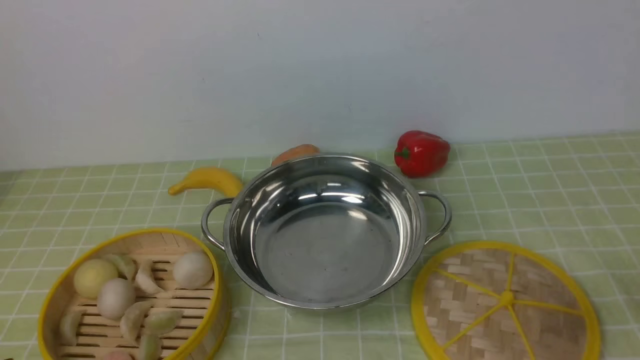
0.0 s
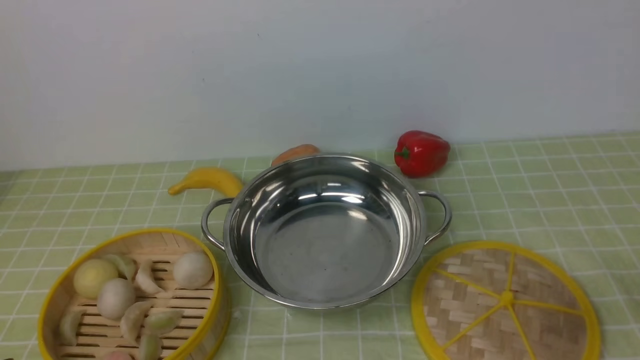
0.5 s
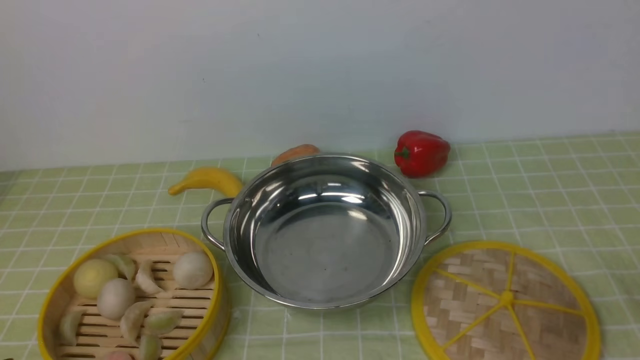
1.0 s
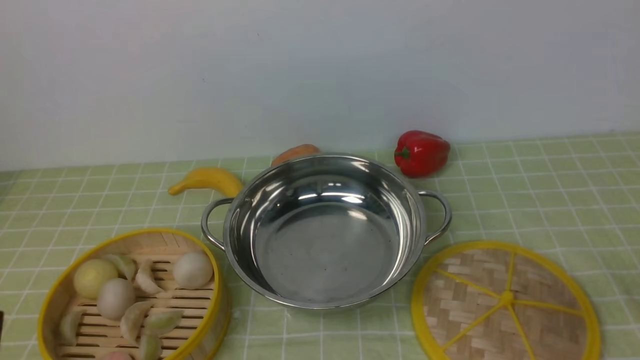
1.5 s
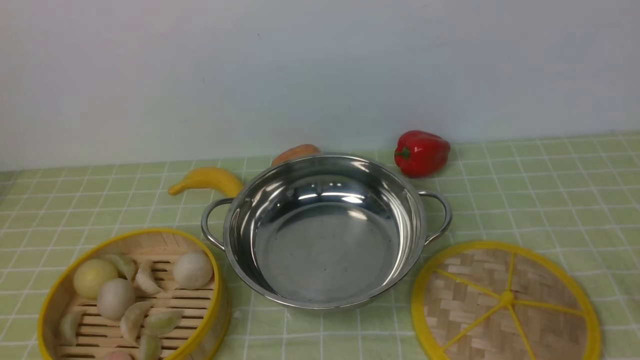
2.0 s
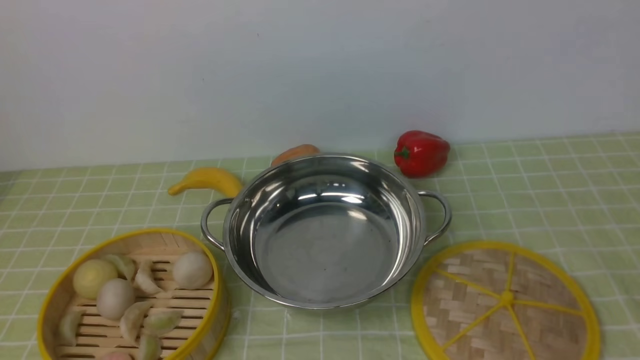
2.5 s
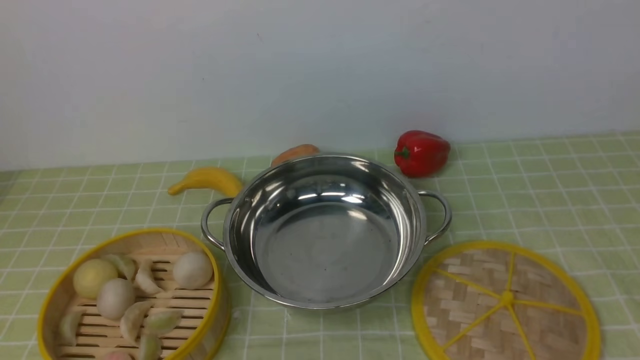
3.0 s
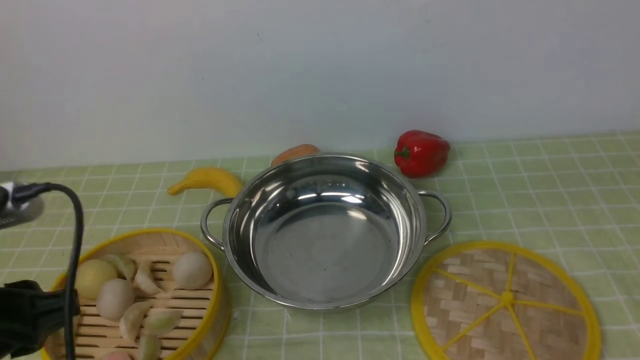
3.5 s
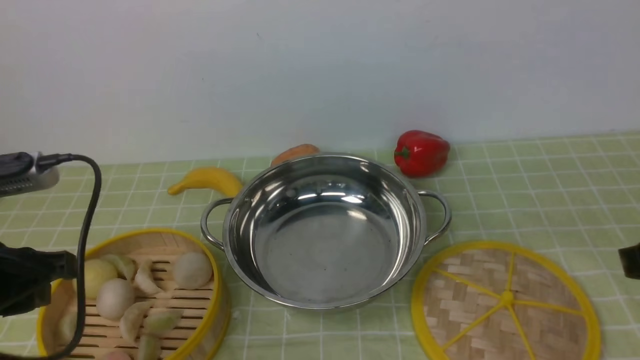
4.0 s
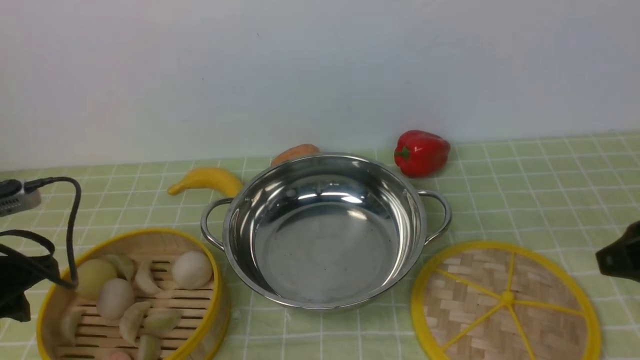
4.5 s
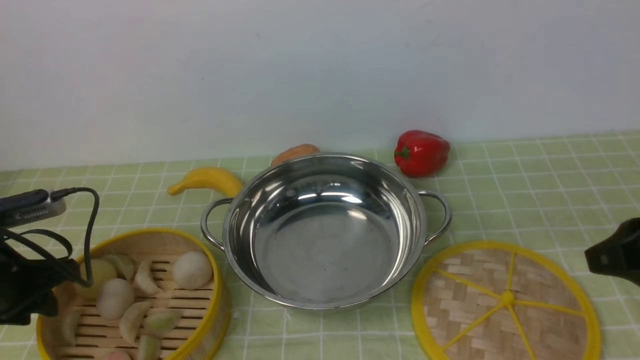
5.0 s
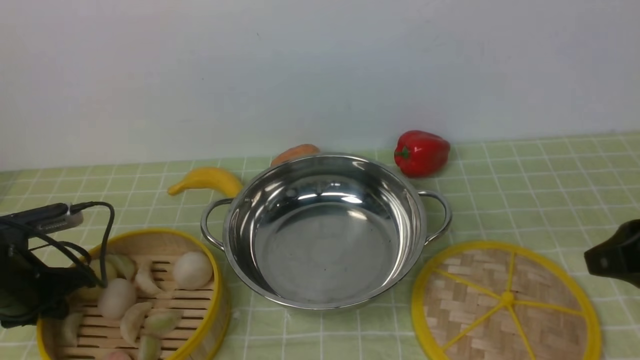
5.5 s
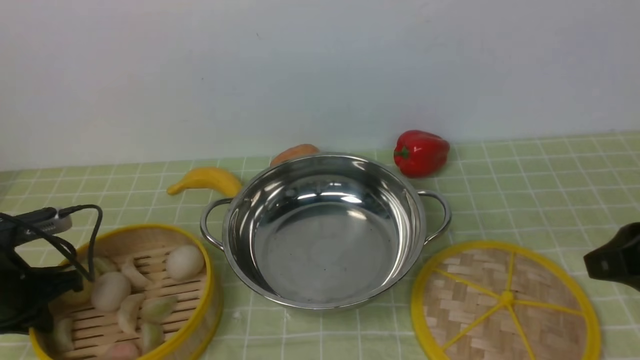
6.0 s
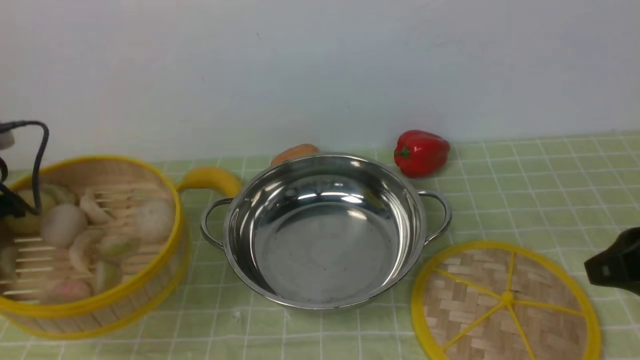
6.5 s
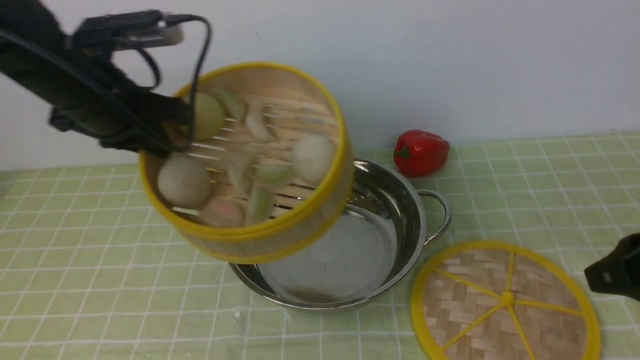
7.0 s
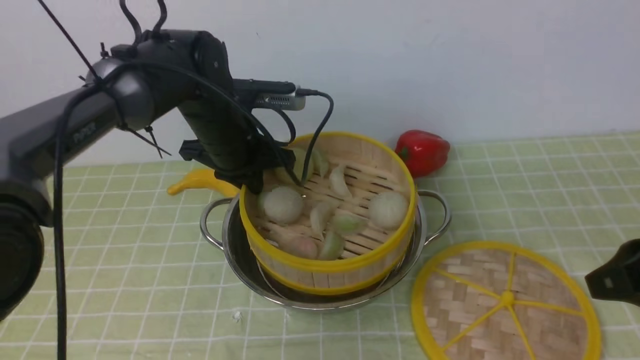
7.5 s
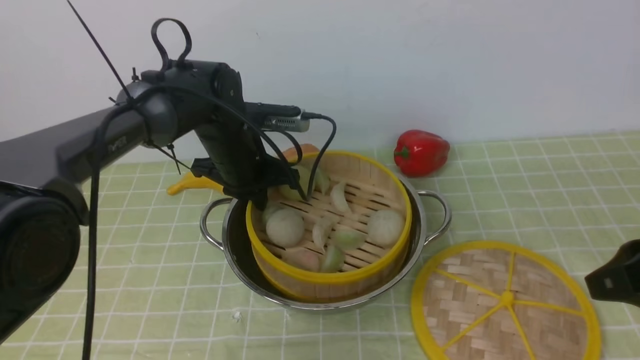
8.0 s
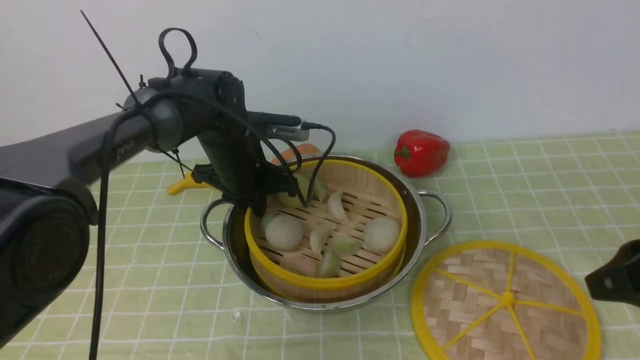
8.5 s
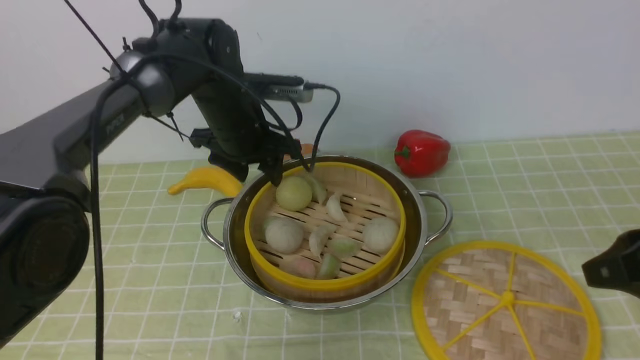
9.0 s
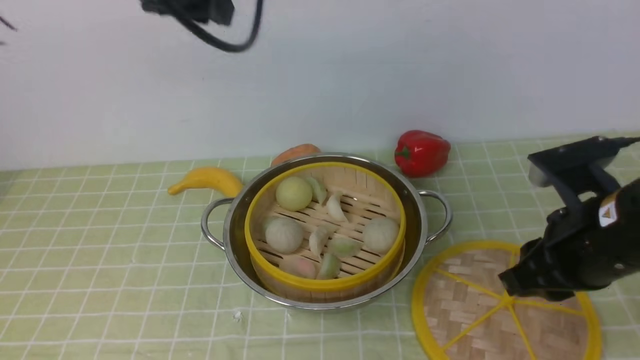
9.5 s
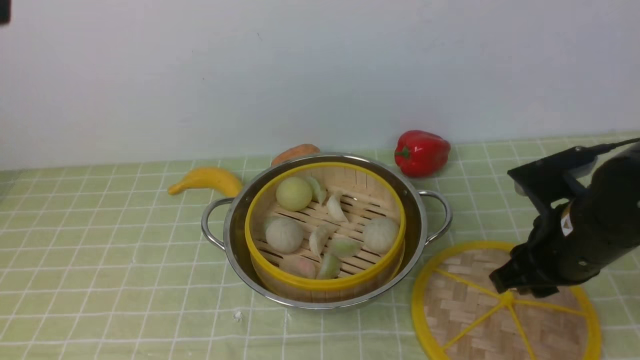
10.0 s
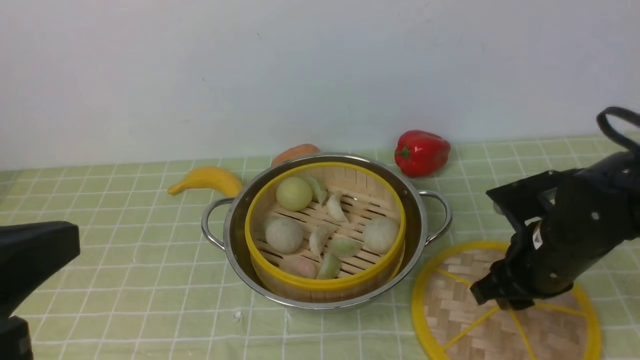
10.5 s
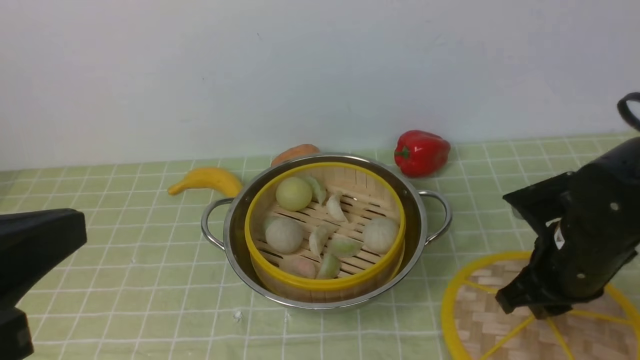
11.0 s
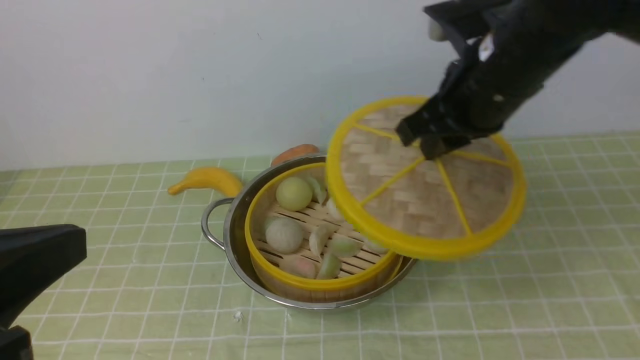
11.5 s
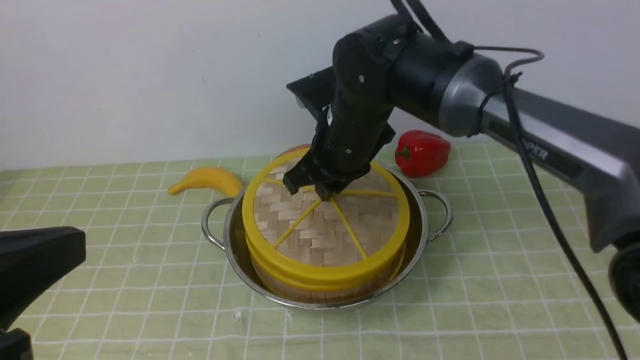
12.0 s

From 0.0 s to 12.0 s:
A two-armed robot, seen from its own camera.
Task of the whole recording: place the steamer in the pot on the green tablecloth, and put the lid on the steamer.
Step, from 0.0 s to 6.5 s: use the left arm to lift the steamer closest to it.
Step, from 7.0 s to 9.0 s: use the left arm to put the steamer into the iron steamer pot in the middle.
Step, from 9.5 s to 11.5 s: use the right arm to lift the lid of the steamer.
From 2.0 s to 4.0 s: The left gripper moves forward, about 15 cm.
From 4.0 s to 6.0 s: The left gripper heads downward, to the left and forward, covering about 15 cm, and closes up.
From 6.0 s to 8.0 s: The left gripper is displaced to the right and forward by roughly 30 cm.
From 8.0 s to 10.0 s: The left gripper travels backward and upward by roughly 40 cm, and opens and closes again; the right gripper moves forward, downward and to the left, roughly 10 cm.
From 10.0 s to 12.0 s: The left gripper travels downward and backward by about 10 cm. The right gripper is displaced to the left and forward by roughly 20 cm.

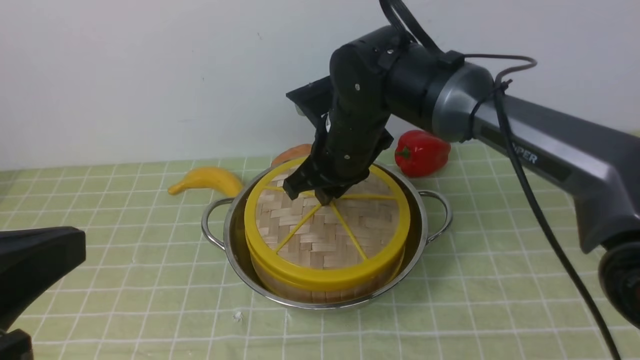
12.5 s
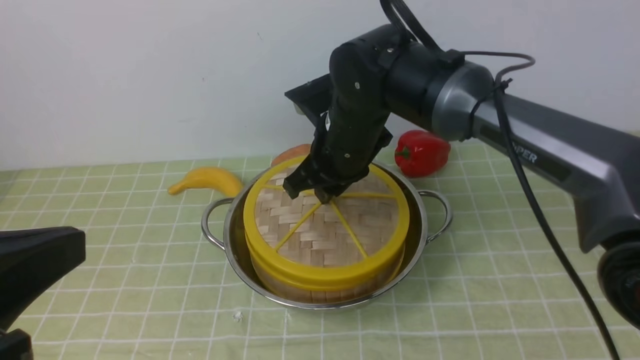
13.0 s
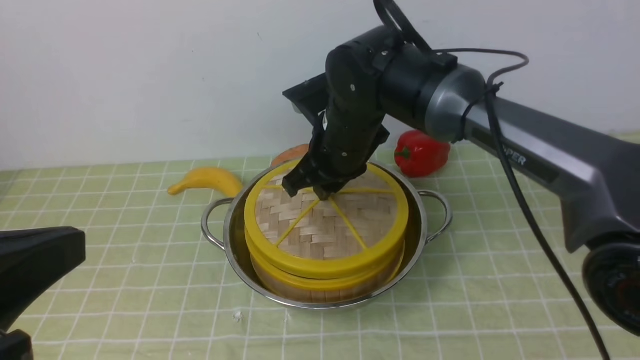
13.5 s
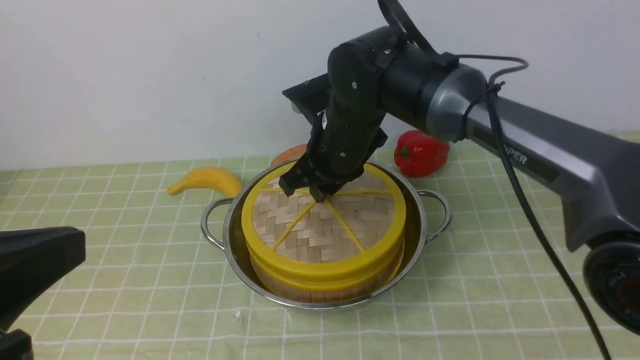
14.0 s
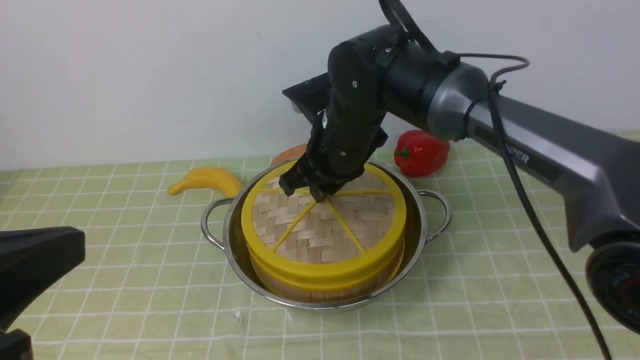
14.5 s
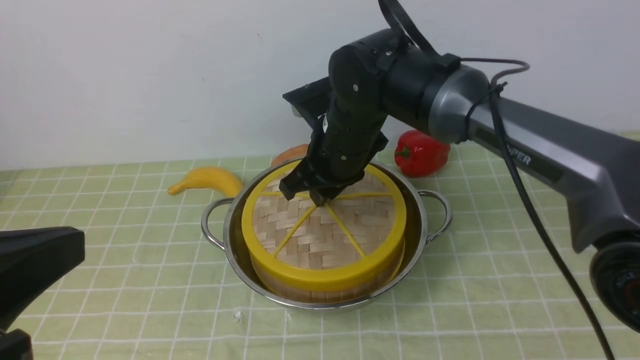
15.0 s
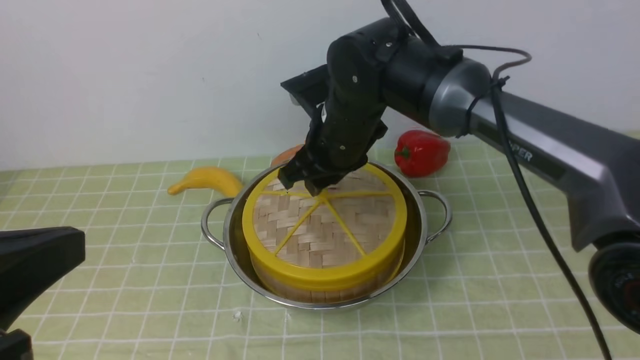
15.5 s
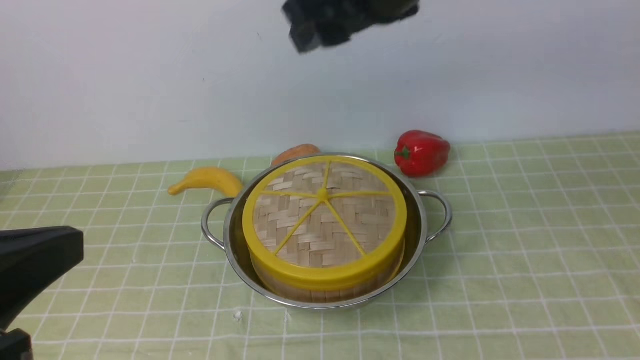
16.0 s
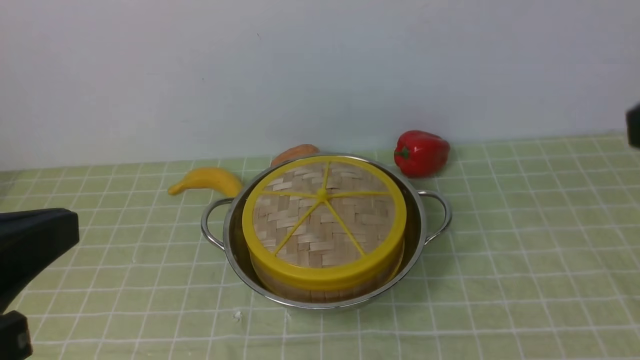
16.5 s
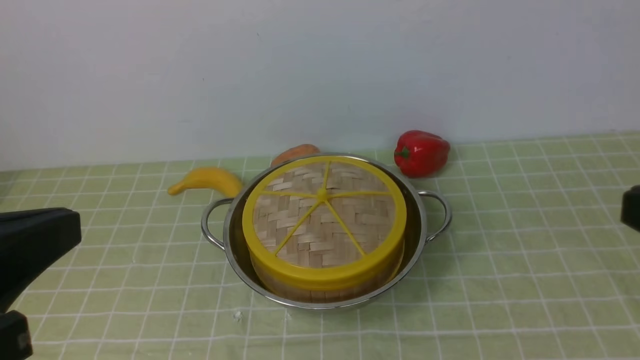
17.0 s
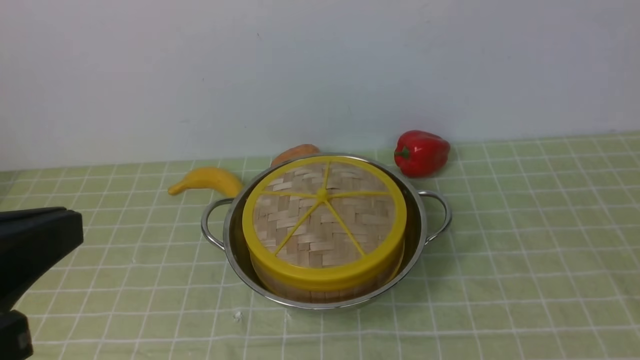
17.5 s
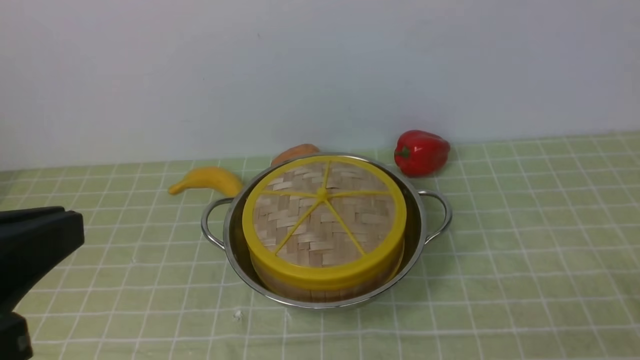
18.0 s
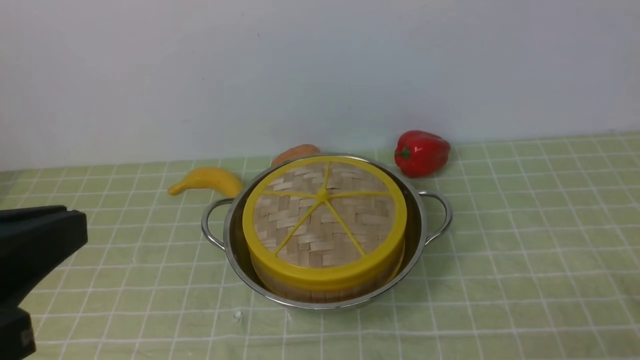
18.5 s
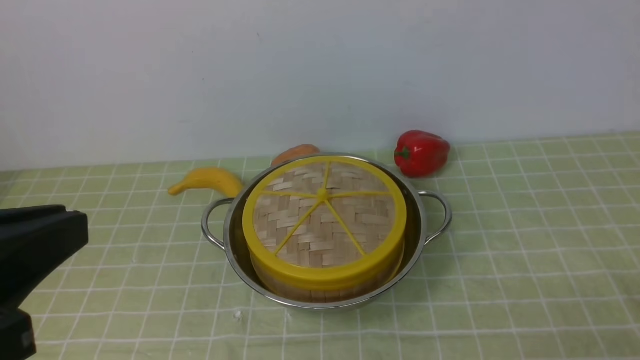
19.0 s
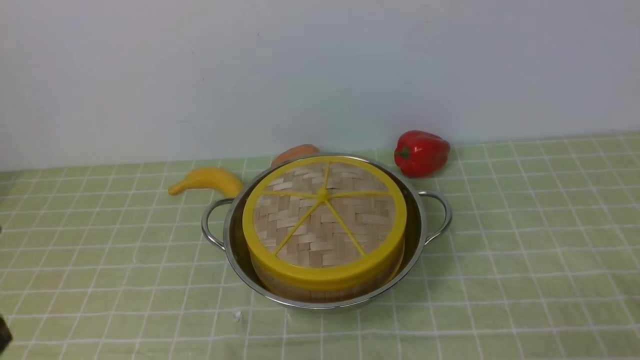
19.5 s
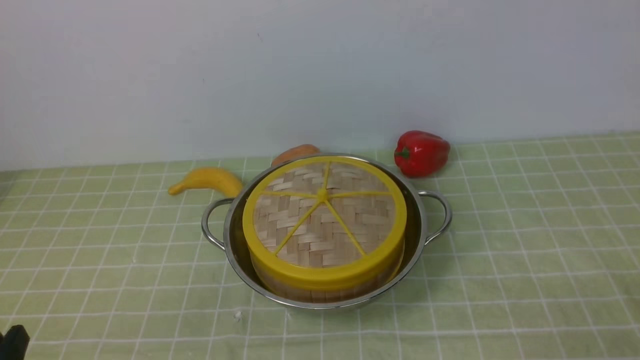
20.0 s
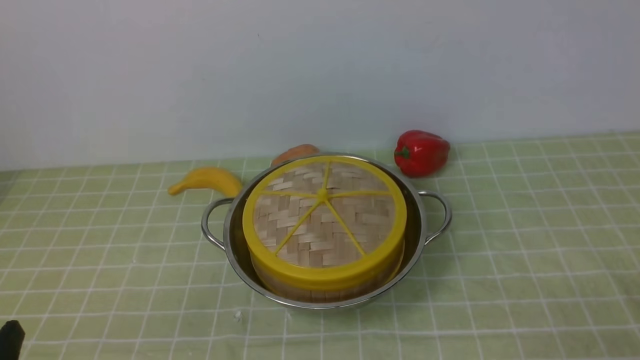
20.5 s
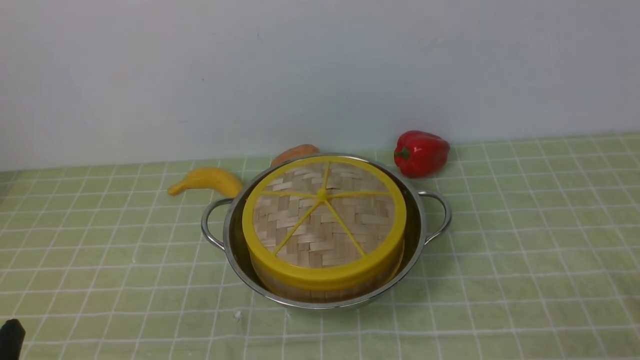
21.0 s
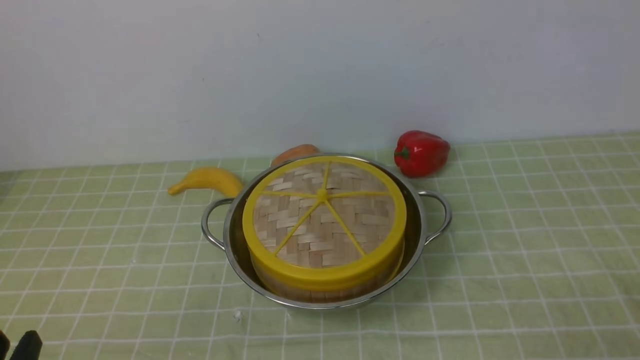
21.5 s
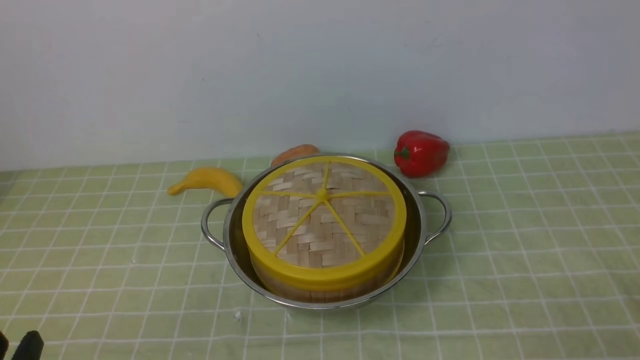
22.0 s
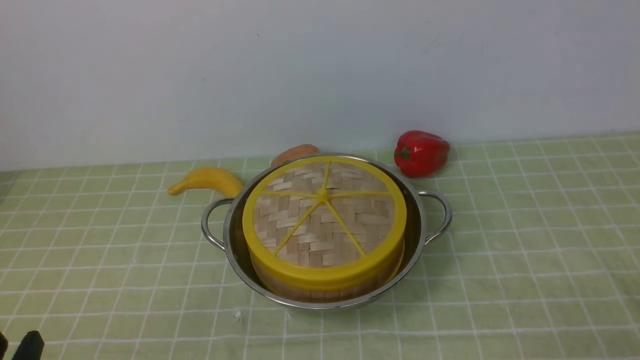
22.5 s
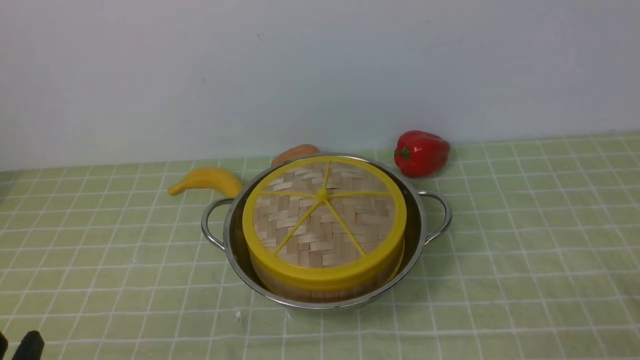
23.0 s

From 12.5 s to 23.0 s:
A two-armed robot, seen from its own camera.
Task of the whole recording: place the steamer in the pot on the green tablecloth, and put the lid on the steamer.
Step, from 12.5 s to 16.0 s: use the right arm to place the steamer lid on the steamer.
From 12.5 s to 14.5 s: Both grippers stay about where they are.
From 14.5 s to 16.5 s: The right gripper travels backward, to the right and upward by roughly 40 cm, and opens and closes again.
From 19.0 s to 21.0 s: The left gripper travels downward by approximately 15 cm.
